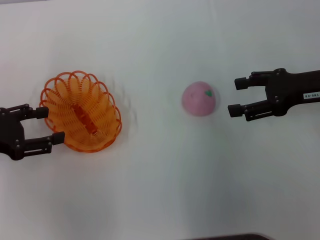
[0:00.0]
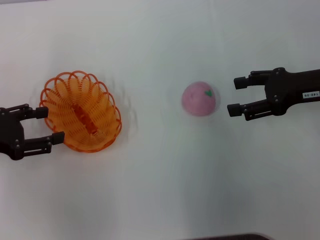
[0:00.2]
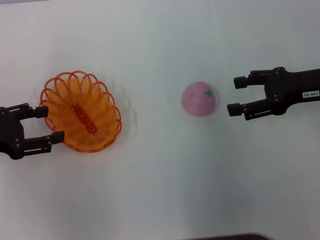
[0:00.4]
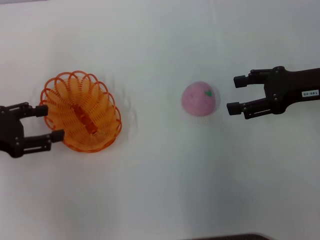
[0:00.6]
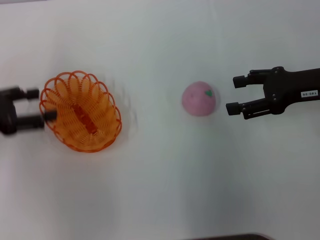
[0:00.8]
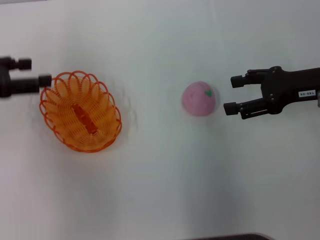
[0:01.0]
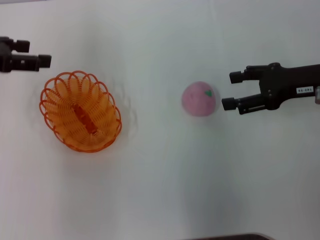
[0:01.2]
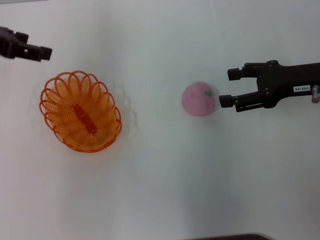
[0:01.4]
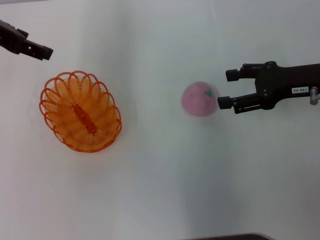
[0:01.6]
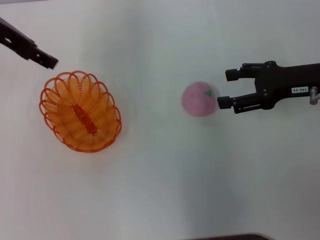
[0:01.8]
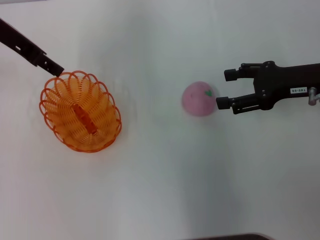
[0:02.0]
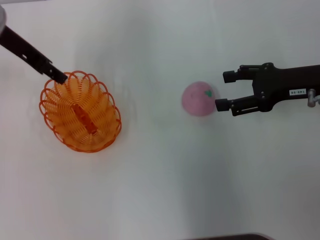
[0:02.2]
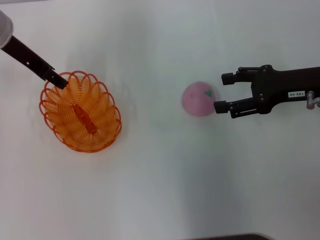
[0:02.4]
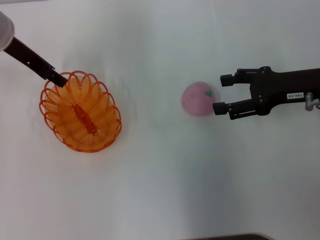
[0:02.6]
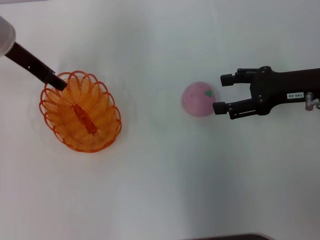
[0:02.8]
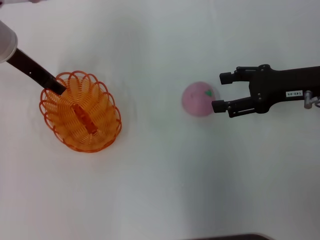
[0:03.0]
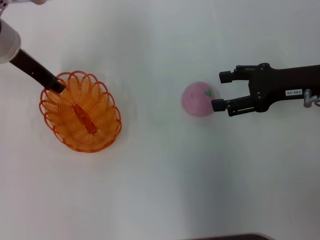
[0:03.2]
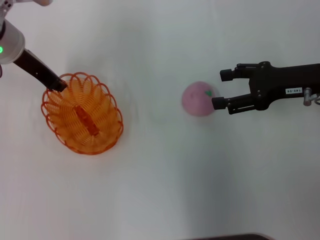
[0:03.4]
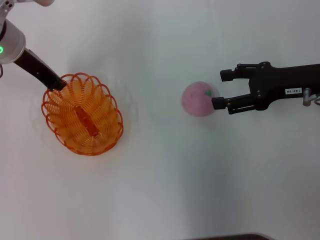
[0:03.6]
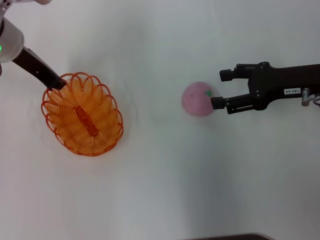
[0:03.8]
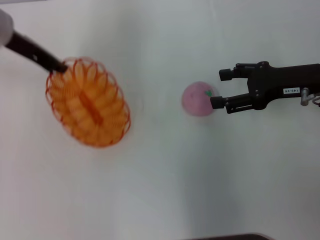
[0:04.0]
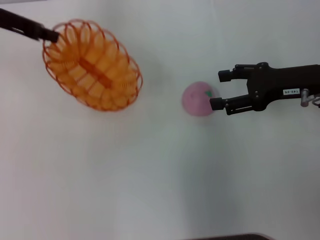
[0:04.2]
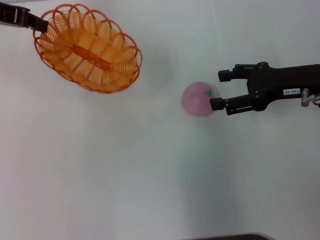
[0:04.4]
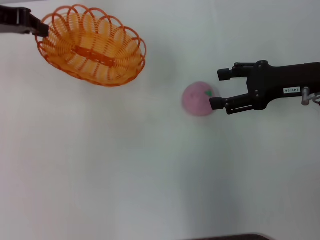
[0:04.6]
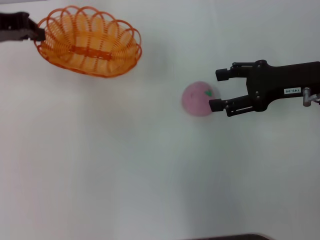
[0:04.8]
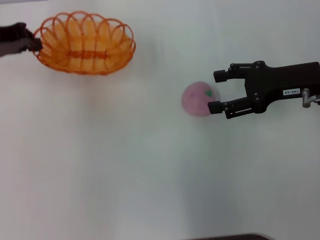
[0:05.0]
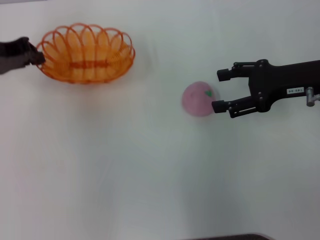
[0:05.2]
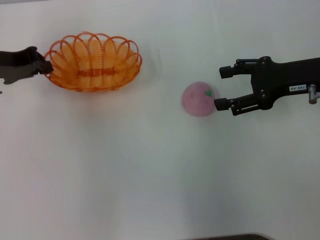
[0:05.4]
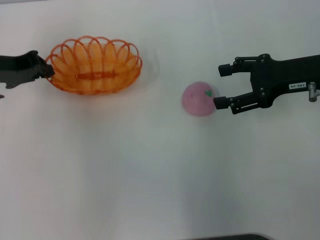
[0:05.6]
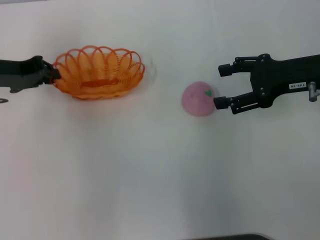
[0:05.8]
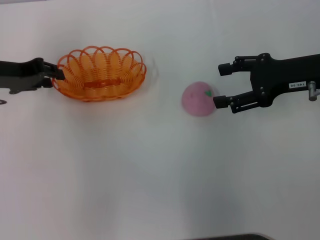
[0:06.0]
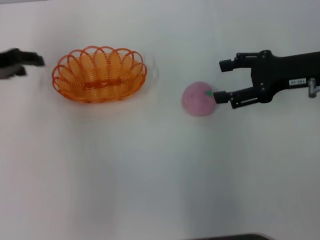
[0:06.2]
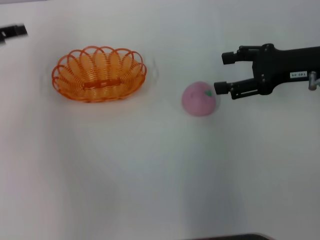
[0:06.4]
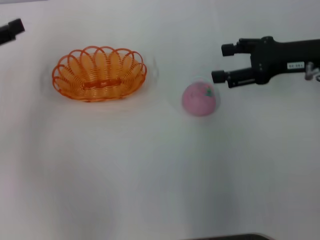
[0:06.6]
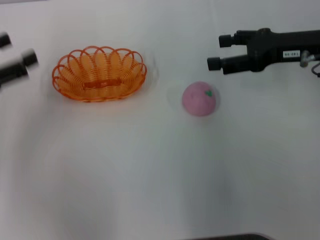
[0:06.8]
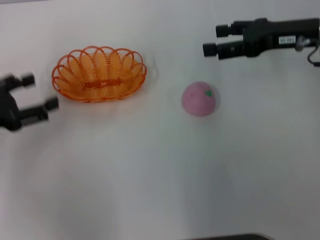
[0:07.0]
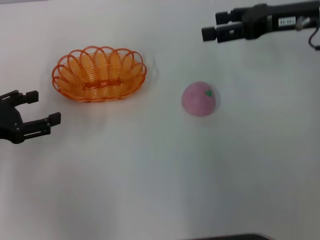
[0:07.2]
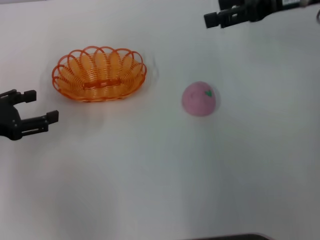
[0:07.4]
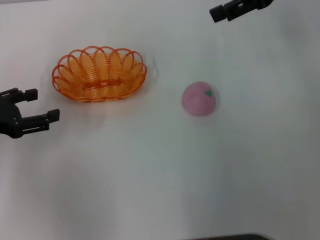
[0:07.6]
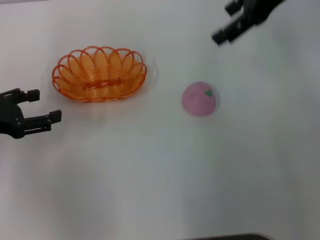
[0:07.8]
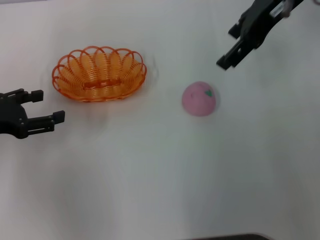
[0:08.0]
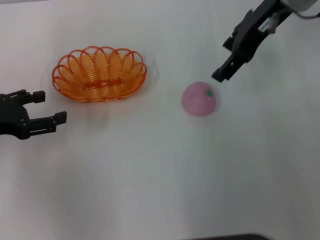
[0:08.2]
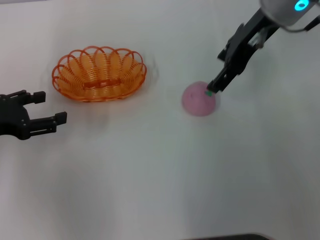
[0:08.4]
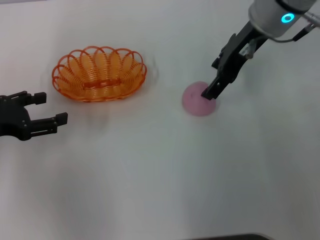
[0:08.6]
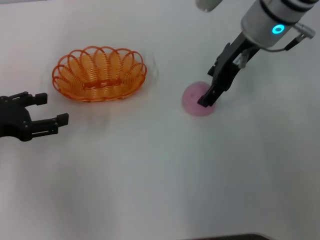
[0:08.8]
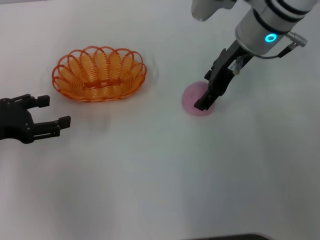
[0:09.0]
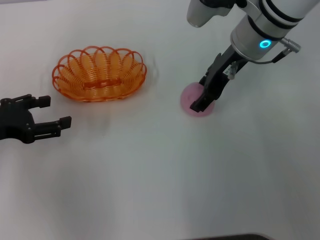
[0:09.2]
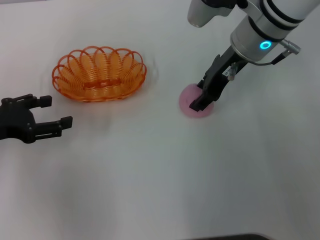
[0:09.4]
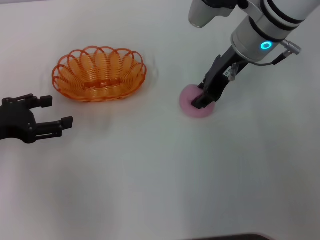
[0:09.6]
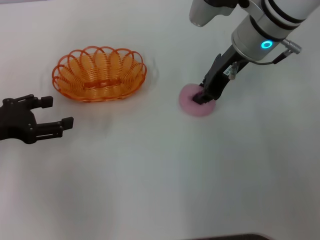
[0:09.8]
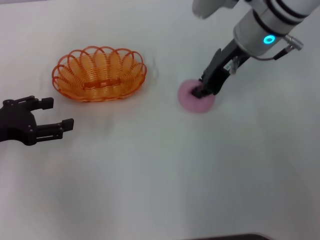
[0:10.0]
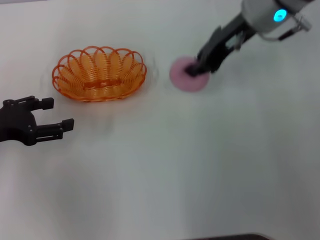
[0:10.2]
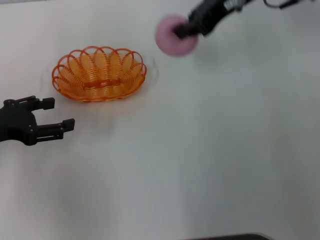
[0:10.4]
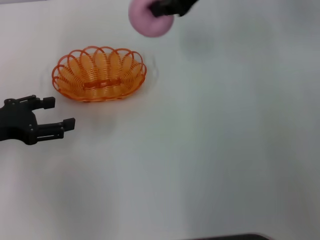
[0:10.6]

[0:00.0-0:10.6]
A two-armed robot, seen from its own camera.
Step, 0:00.0 to 0:03.8: Pick up the basket with the left gripper.
Step, 0:04.2 to 0:06.4: Place the basket in the center of view with the left gripper.
Step, 0:06.6 to 0:10.2: Pick up the peach with the right gripper.
0:00.0 to 0:01.6: The left gripper goes roughly 20 cm upward, forward and to the right.
0:01.6 to 0:03.0: The left gripper moves downward, approximately 10 cm.
0:03.0 to 0:04.6: The left gripper goes roughly 10 cm upward and to the left, and closes its fingers.
0:04.6 to 0:06.0: The left gripper goes approximately 10 cm downward.
0:06.0 to 0:07.6: The right gripper is displaced upward and forward by about 15 cm. Meanwhile the left gripper heads backward, covering about 10 cm, and opens.
0:07.6 to 0:09.0: The right gripper heads to the left and downward, covering about 15 cm.
0:09.0 to 0:10.6: The right gripper moves upward, approximately 10 cm, and closes.

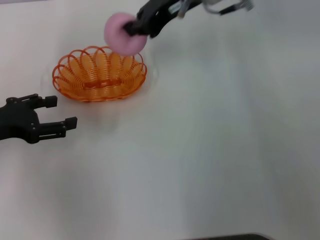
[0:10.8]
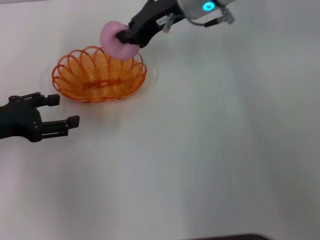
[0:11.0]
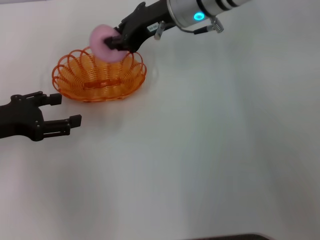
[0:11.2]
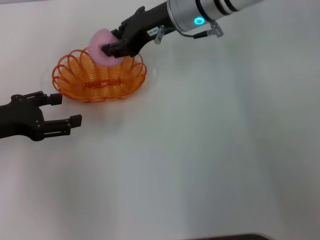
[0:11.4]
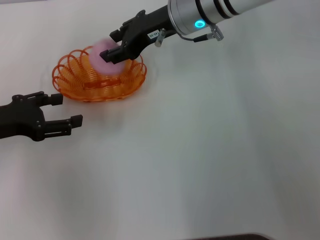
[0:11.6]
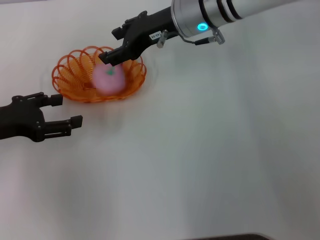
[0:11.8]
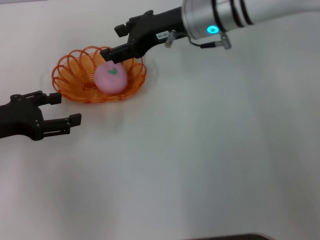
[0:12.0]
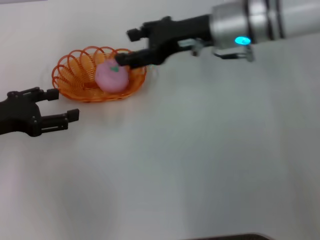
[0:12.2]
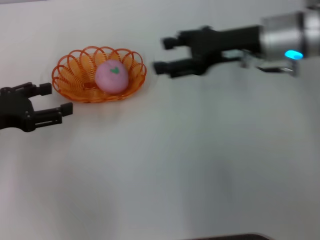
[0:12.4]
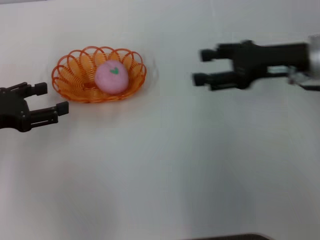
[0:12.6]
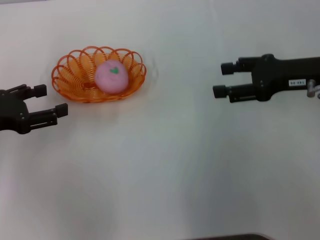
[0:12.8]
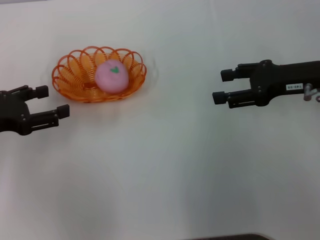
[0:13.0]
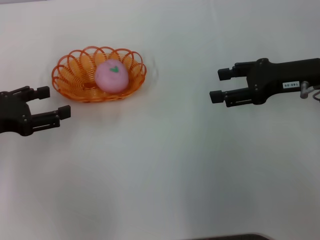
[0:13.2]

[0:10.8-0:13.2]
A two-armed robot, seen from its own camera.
Step, 0:10.8 to 0:12.4: Place the peach into the basket with the right gripper.
0:10.8 to 0:12.0: The right gripper is displaced downward by roughly 5 cm, and opens.
0:12.0 to 0:13.2: The right gripper heads to the right and backward, covering roughly 20 cm.

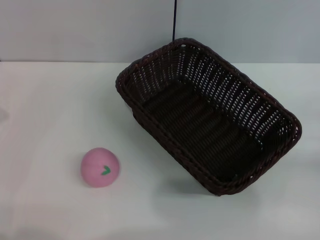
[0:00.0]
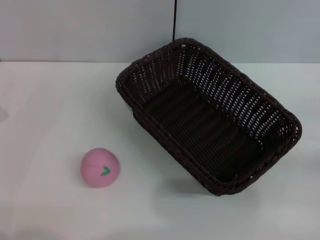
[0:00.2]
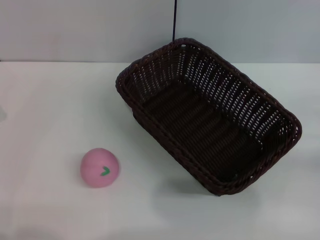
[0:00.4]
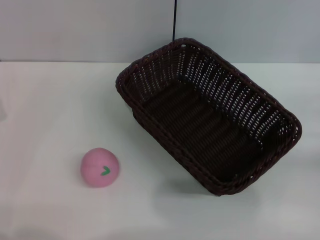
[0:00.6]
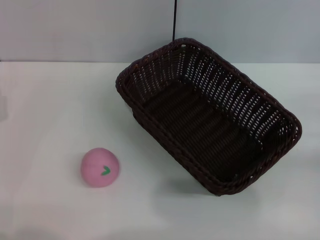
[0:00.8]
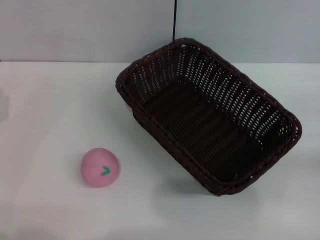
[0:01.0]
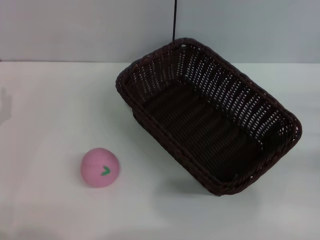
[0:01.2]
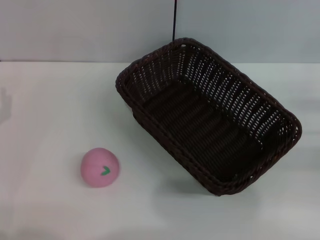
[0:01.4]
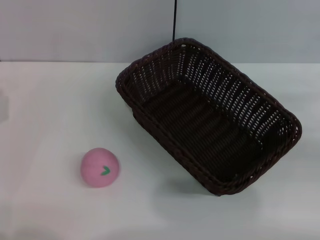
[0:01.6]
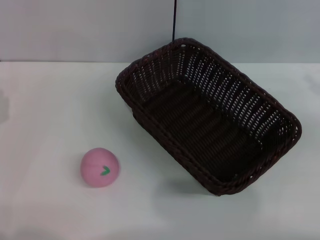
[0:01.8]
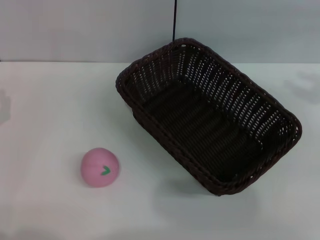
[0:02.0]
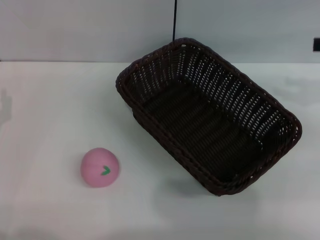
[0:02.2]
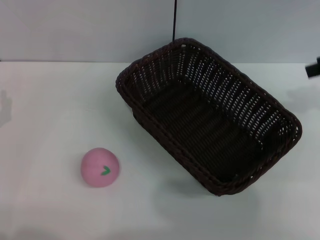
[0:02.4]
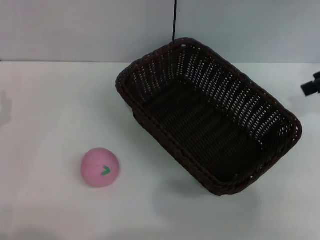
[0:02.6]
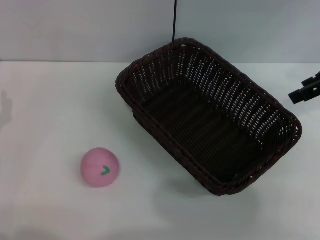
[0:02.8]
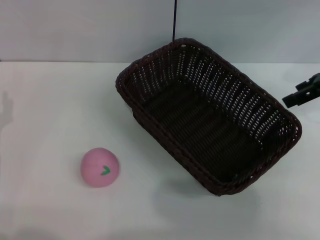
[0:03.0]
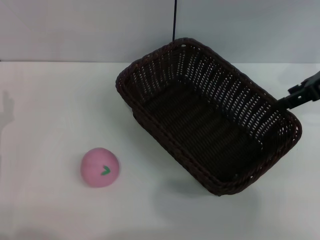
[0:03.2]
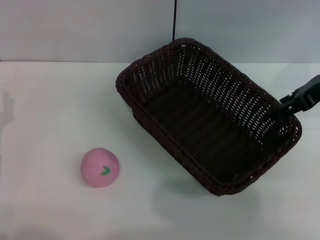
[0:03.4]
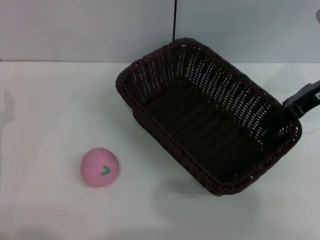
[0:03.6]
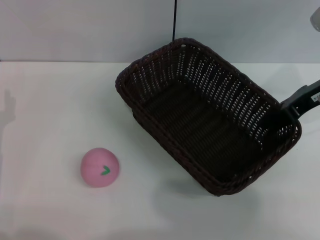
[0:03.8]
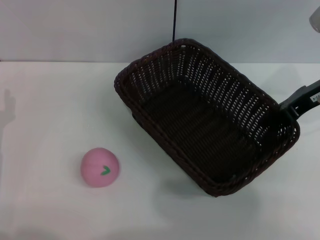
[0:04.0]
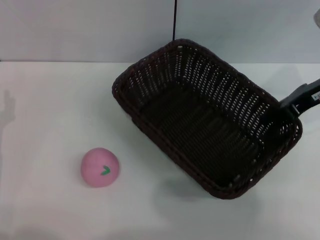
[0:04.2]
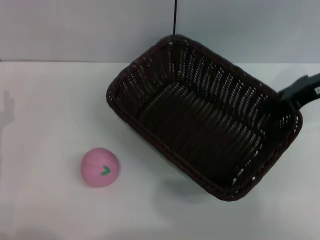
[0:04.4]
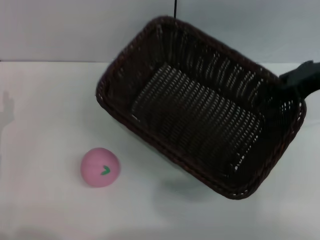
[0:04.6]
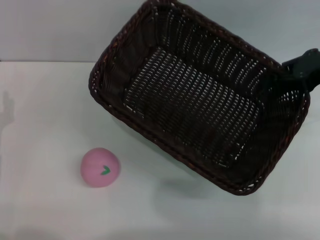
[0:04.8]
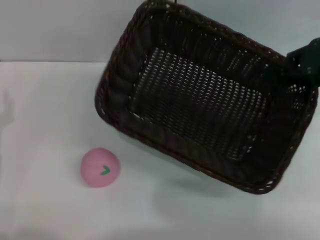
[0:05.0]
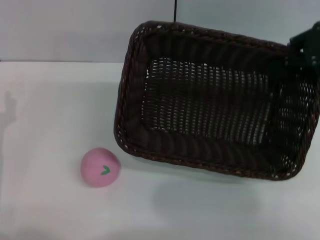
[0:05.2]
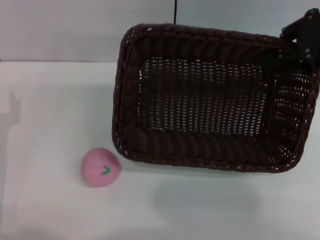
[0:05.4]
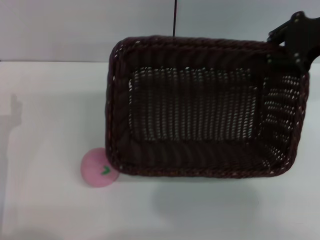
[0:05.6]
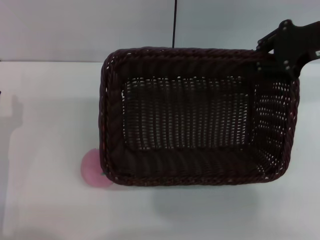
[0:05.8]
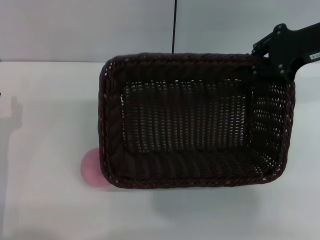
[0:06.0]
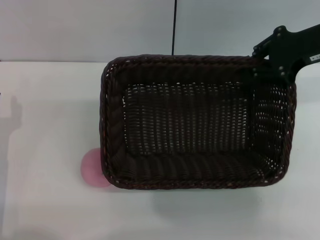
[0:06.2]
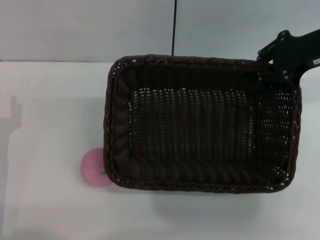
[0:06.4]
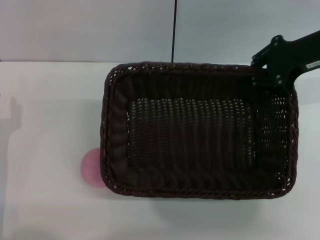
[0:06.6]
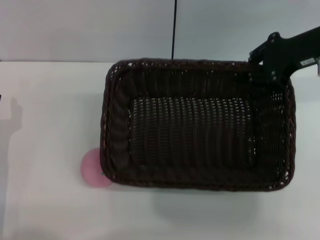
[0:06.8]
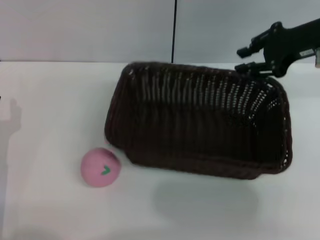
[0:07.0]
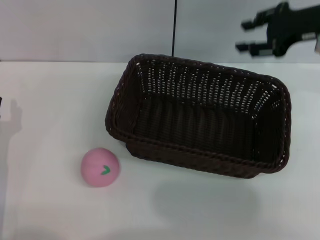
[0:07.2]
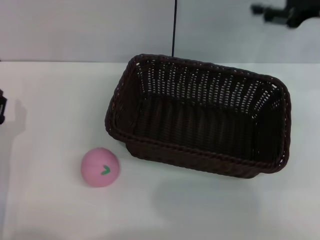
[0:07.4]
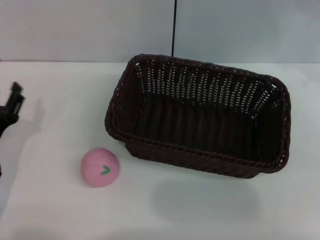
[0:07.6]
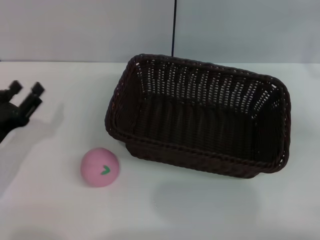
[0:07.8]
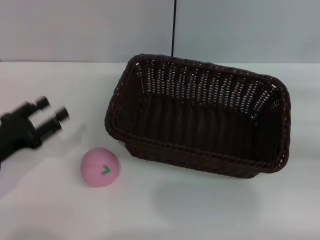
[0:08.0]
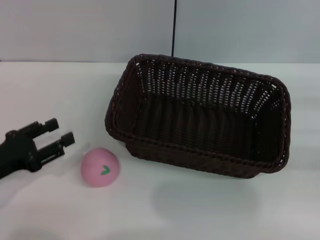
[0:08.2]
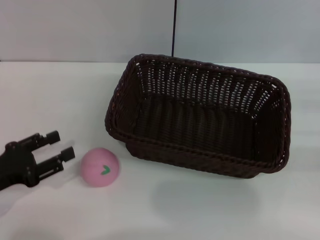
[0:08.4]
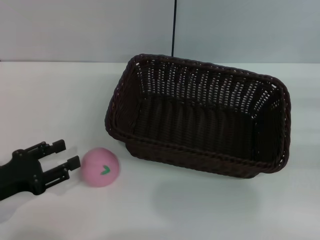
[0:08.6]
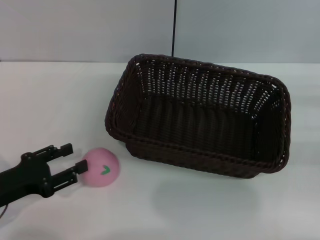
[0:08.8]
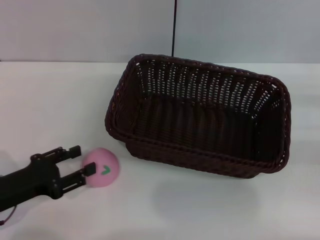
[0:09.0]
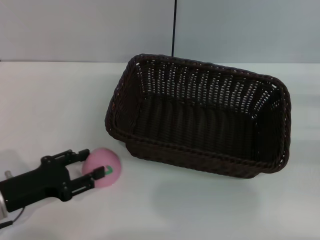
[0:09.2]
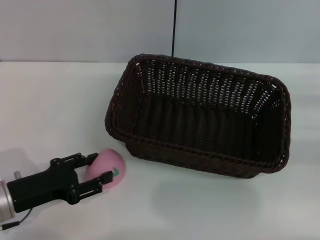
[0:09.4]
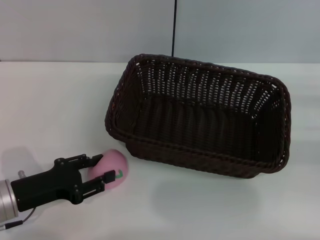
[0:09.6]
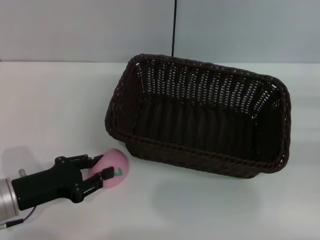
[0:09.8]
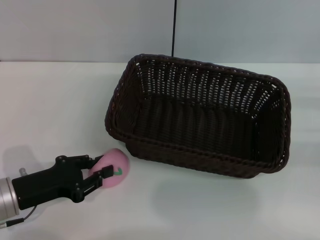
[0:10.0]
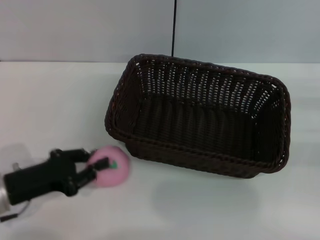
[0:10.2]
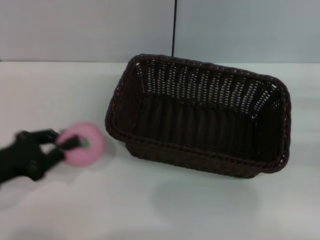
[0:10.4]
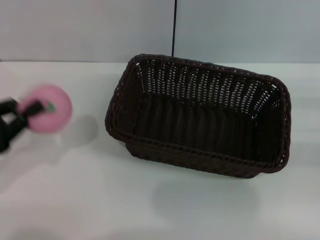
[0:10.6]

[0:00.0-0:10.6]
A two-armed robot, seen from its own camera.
Step, 0:00.0 to 0:04.6: Pick up the dark basket with the right gripper.
Step, 0:04.8 to 0:07.2: Place the dark basket in the center of view with the right gripper.
Step, 0:07.6 to 0:10.6: Pick up the peach with the left gripper.
0:01.6 to 0:03.0: The right gripper goes roughly 15 cm to the left, upward and forward.
0:03.0 to 0:04.6: The right gripper closes.
0:06.0 to 0:07.6: The right gripper travels to the right by roughly 10 cm, and opens.
0:09.0 to 0:10.6: The left gripper shifts about 5 cm upward, and closes its fingers.
